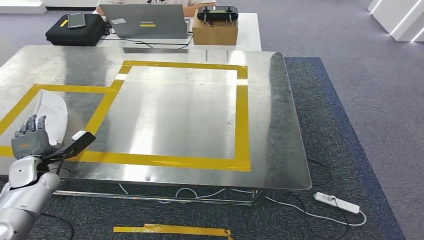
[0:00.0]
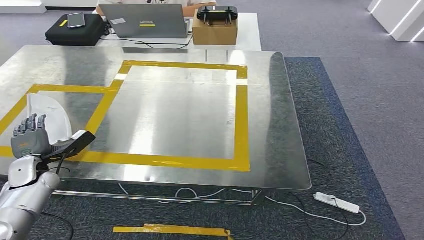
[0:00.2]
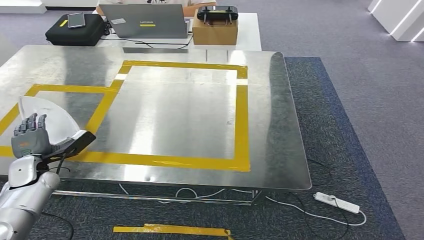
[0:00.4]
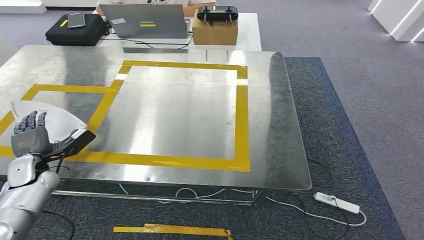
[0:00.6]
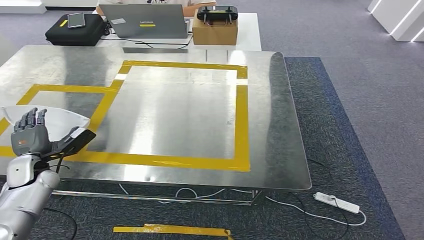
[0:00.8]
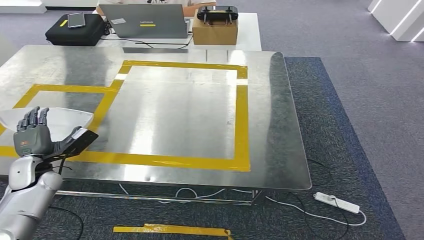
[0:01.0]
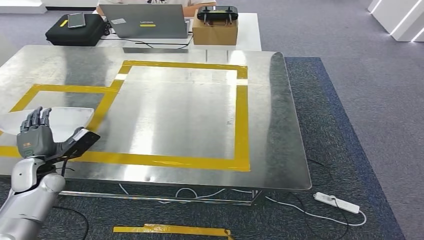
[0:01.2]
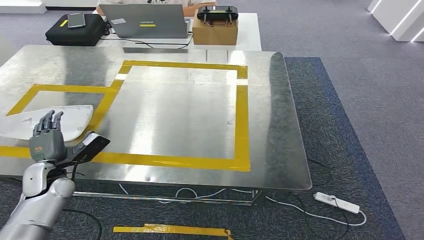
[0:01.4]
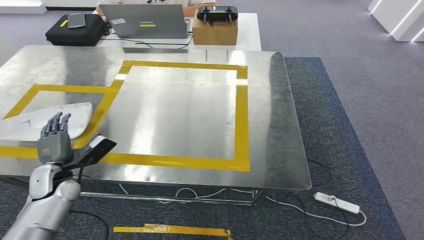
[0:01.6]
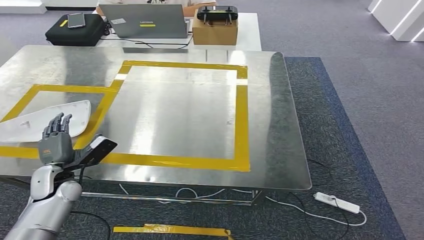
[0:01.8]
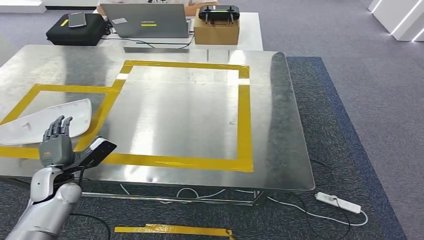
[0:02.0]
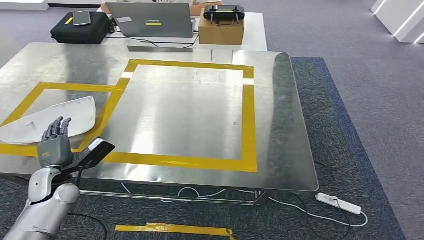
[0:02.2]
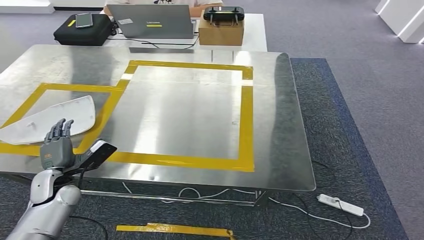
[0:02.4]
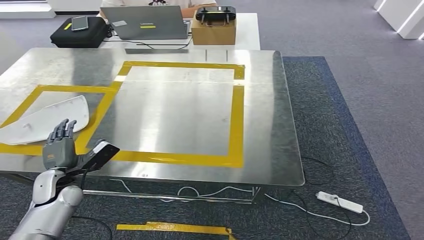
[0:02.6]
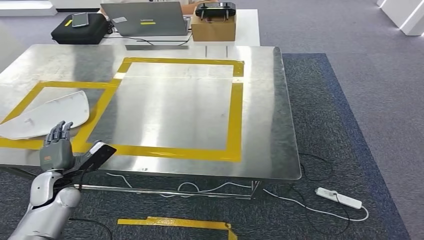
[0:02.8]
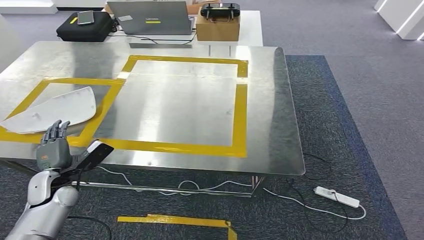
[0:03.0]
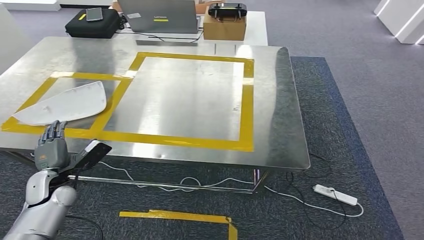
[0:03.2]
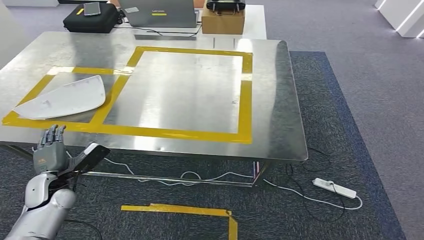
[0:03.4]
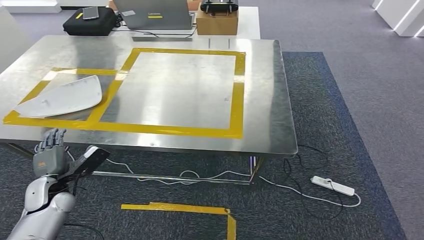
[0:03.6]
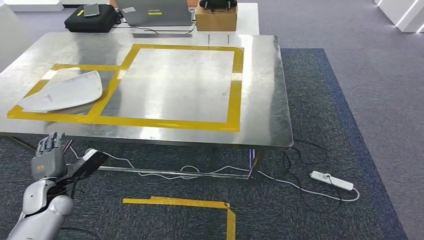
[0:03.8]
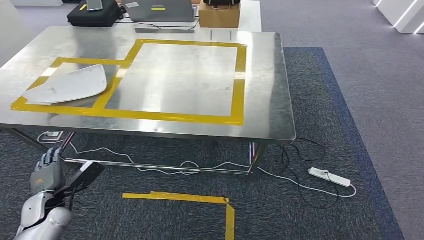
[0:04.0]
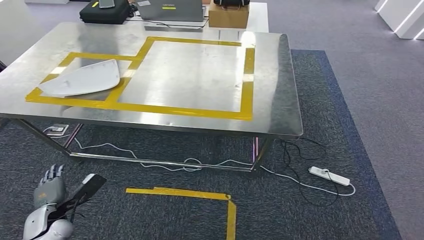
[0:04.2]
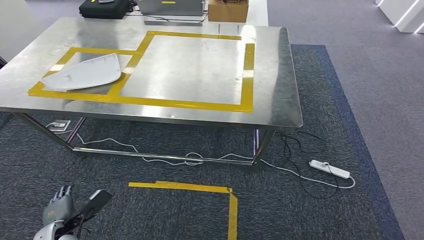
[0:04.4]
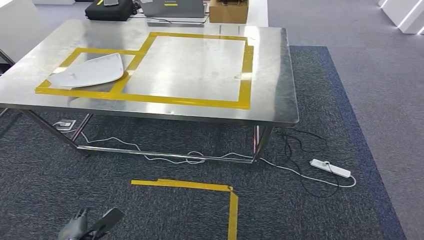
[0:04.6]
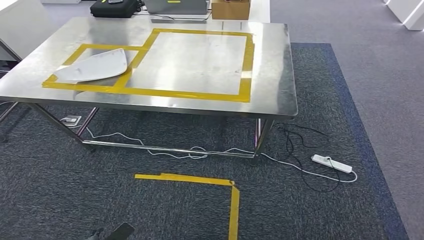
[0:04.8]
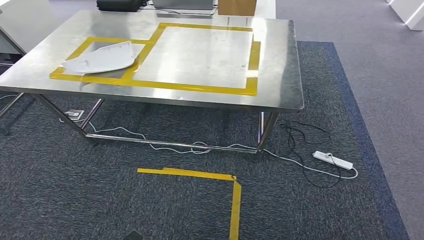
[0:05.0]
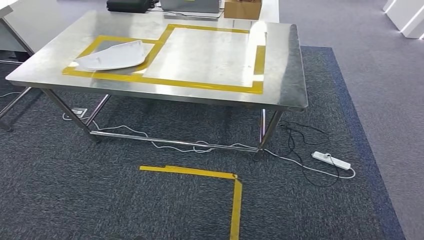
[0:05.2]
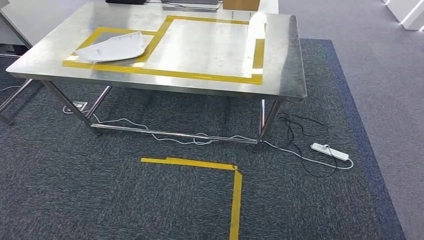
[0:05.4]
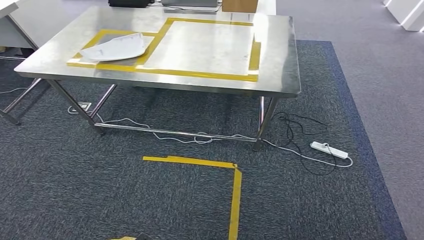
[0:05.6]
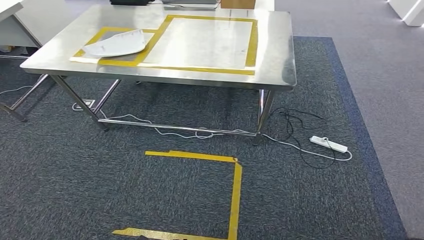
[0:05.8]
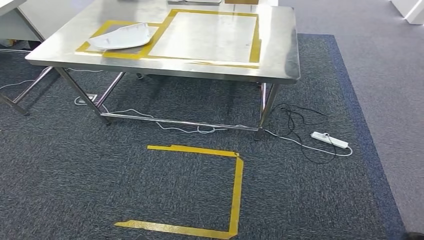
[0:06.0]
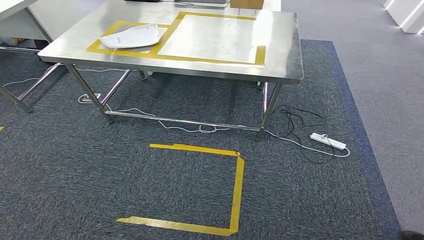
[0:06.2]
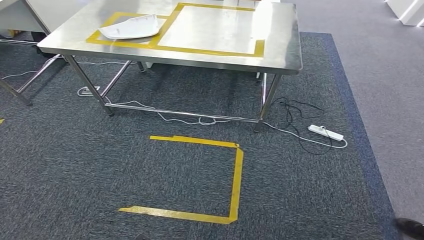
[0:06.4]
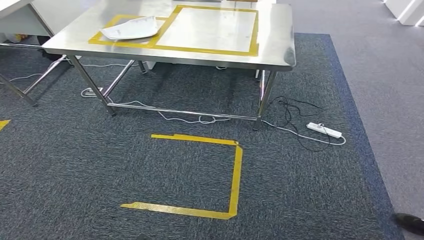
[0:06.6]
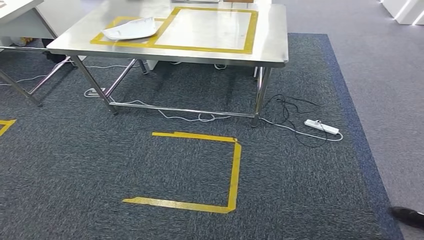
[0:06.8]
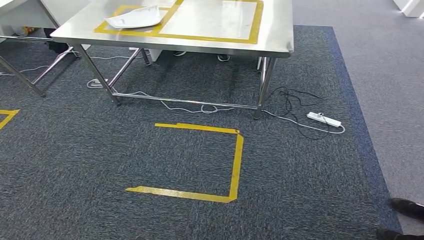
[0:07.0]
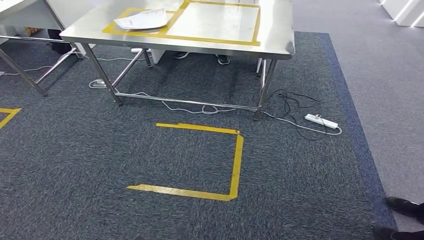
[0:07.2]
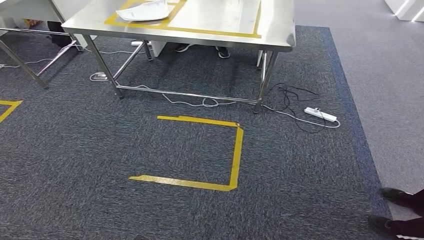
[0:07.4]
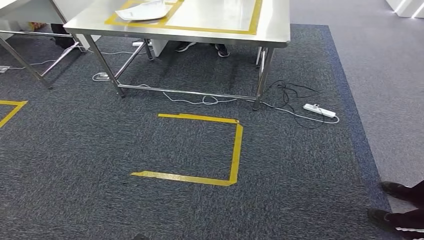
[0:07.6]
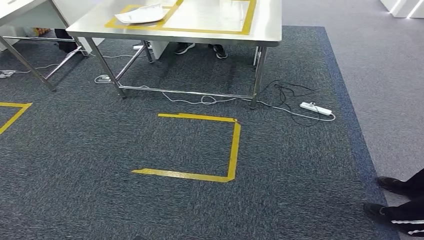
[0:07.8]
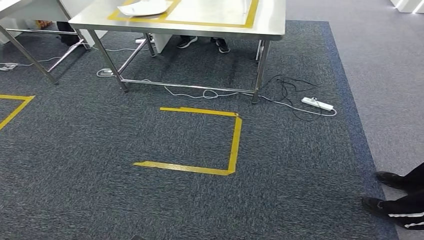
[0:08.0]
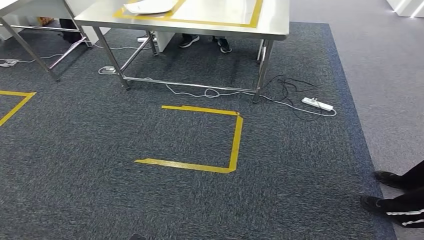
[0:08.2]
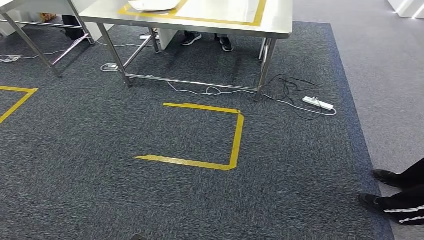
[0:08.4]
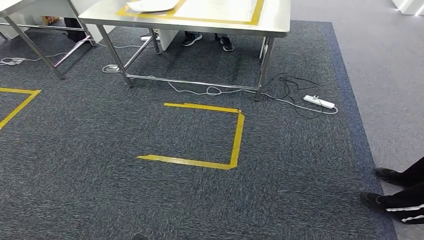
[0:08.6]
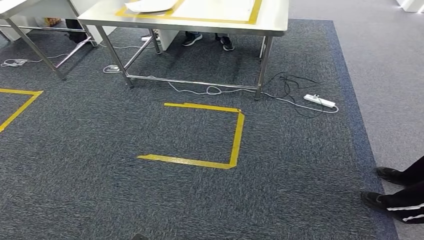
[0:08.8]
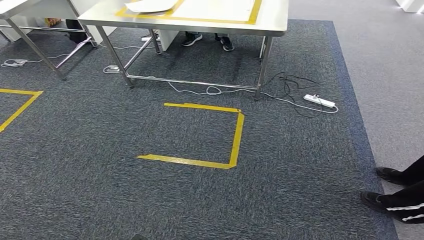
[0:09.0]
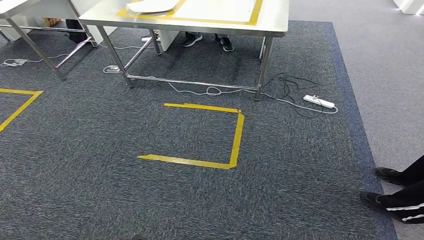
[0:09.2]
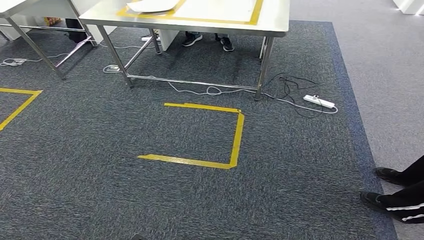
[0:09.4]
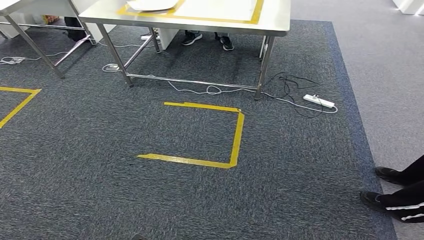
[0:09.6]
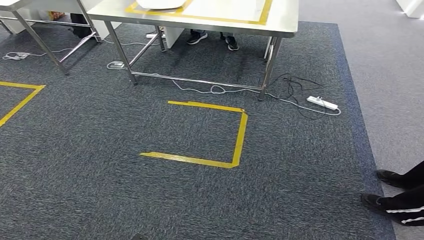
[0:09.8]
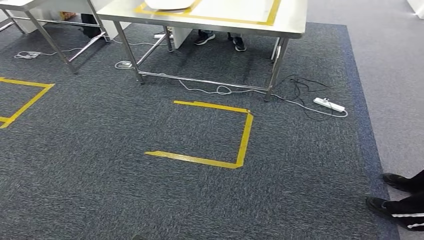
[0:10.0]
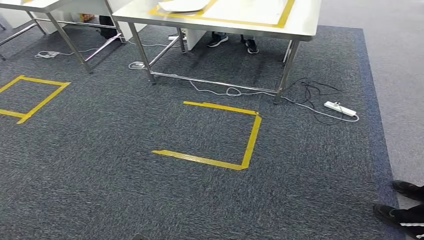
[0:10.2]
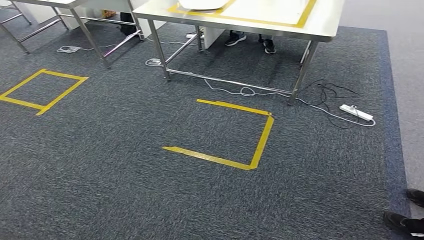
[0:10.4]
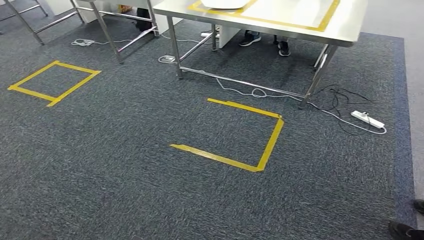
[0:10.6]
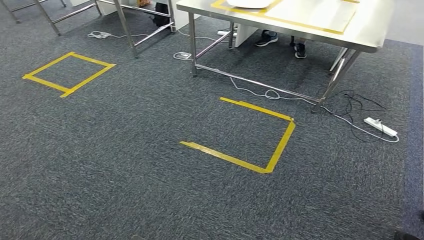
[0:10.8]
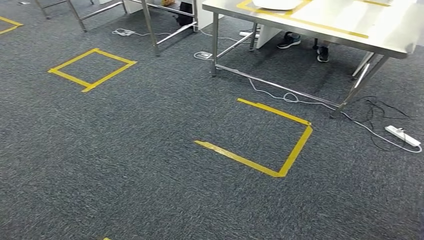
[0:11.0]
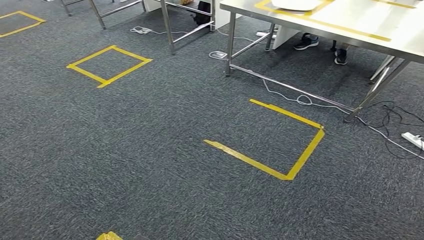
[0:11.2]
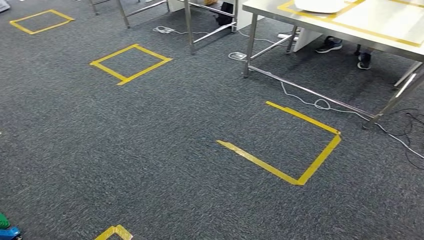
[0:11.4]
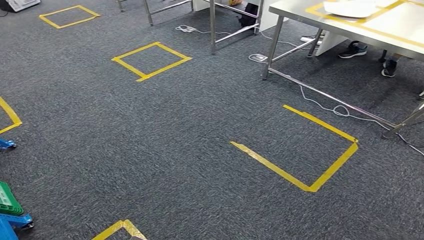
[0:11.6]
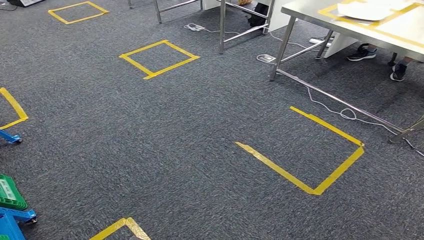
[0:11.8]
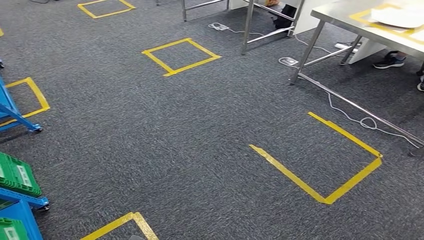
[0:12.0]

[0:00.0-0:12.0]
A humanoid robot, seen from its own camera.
Step, 0:00.0 to 0:07.4: Insert the small parts into the corresponding holes on the workbench.
0:00.0 to 0:01.6: The left hand is displaced to the right by approximately 5 cm.

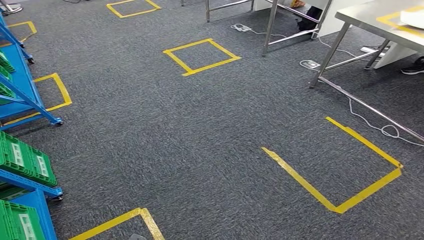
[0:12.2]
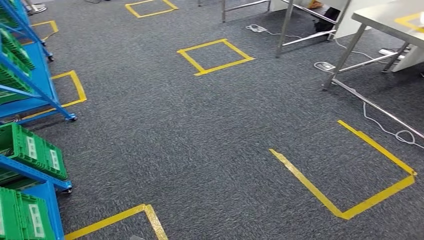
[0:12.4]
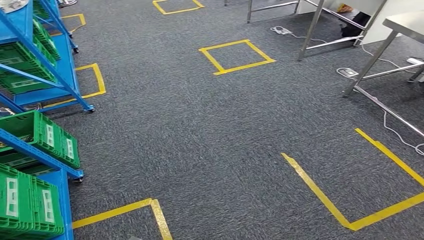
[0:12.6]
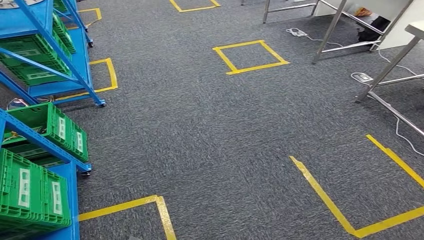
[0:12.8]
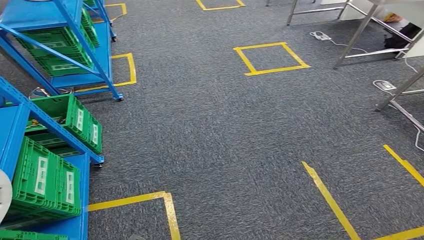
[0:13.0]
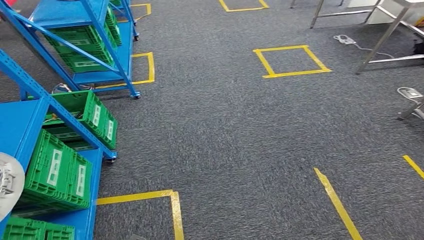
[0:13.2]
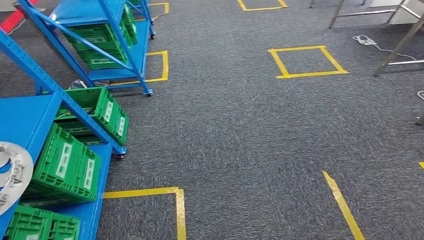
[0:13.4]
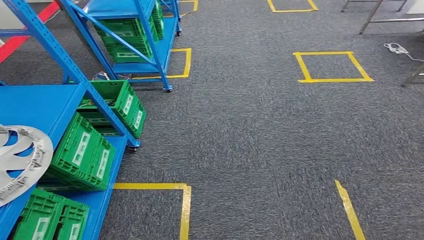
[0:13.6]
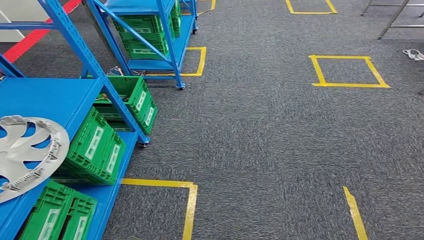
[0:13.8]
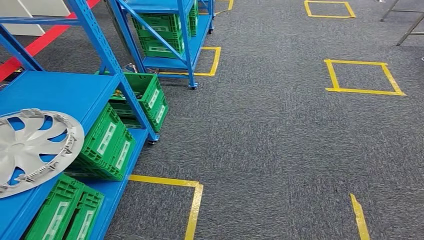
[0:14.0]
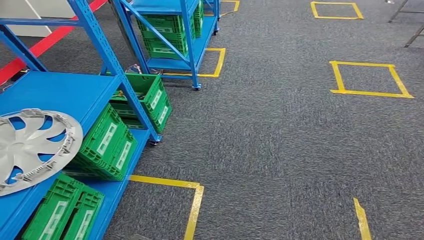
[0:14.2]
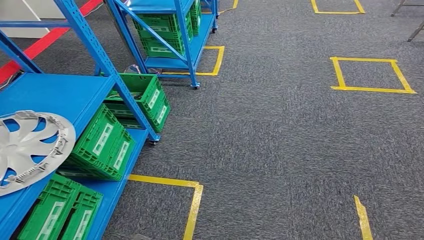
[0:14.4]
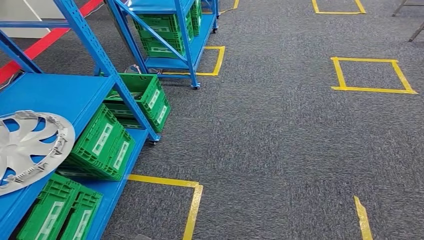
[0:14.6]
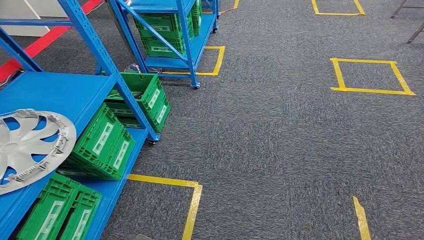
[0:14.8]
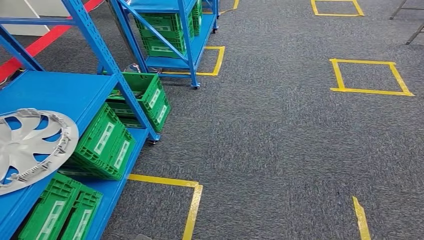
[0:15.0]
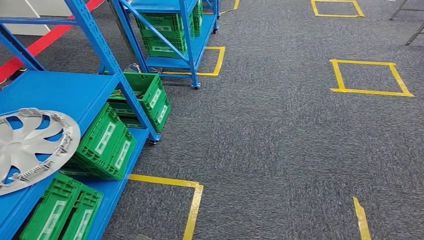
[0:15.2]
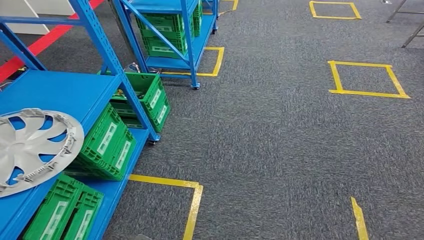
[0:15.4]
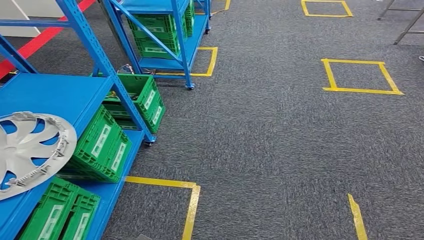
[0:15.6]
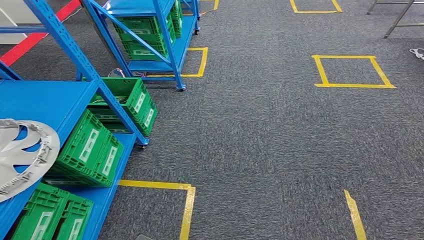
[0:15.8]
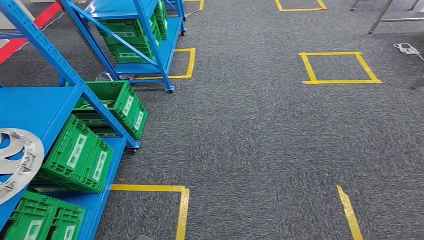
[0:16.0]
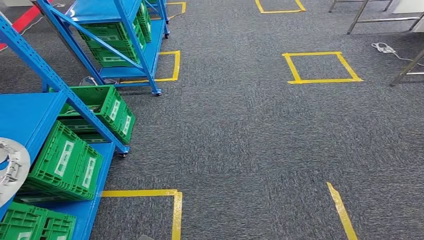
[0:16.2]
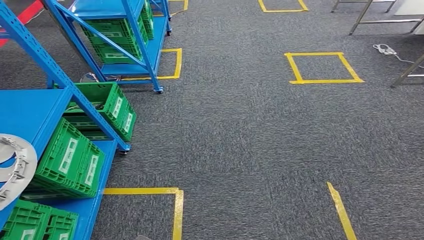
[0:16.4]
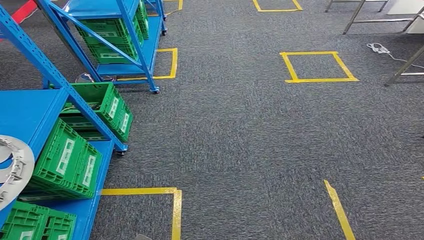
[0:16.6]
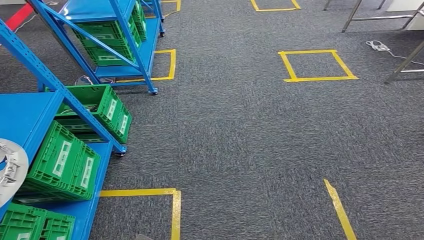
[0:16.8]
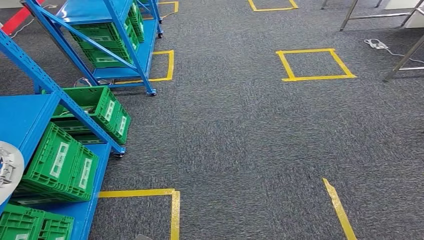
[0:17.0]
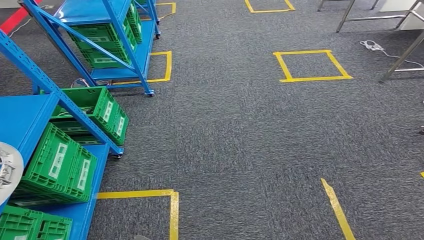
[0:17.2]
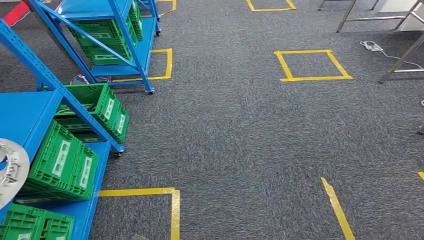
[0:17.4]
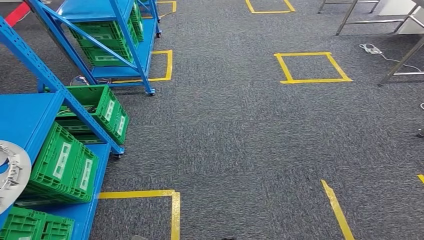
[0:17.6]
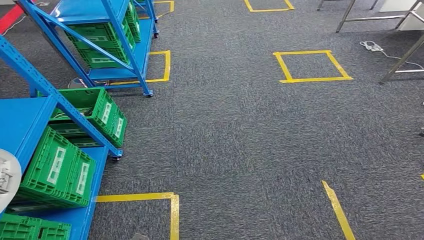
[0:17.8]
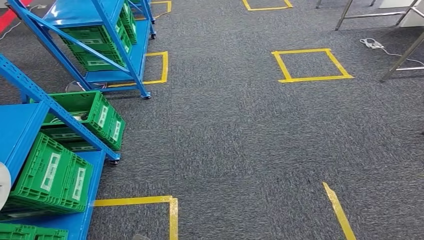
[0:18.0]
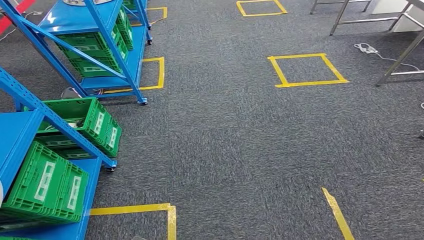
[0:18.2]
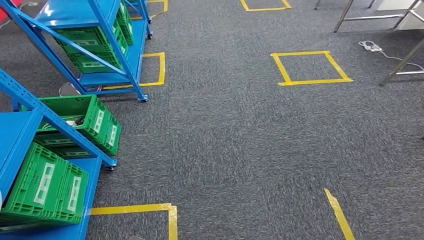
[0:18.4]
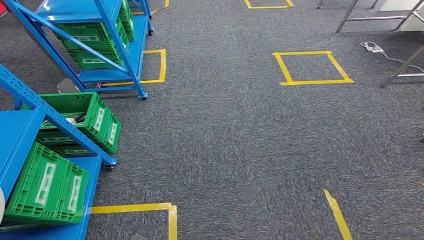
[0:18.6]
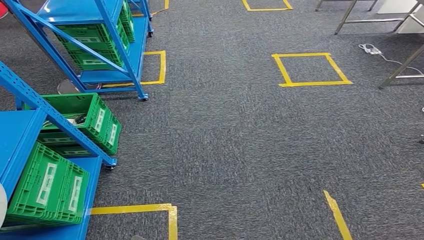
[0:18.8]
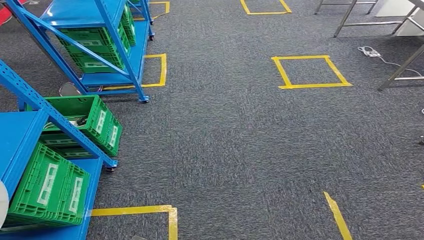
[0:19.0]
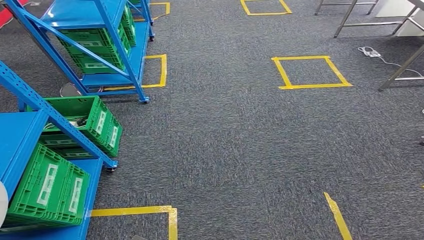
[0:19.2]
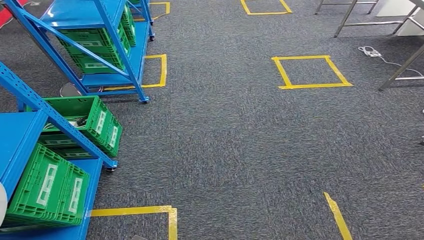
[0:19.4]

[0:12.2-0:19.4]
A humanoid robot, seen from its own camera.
0:18.0 to 0:19.4: Both hands stay put.
